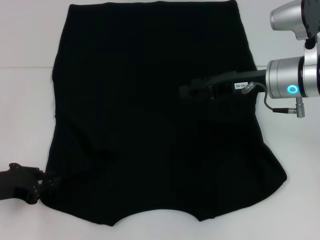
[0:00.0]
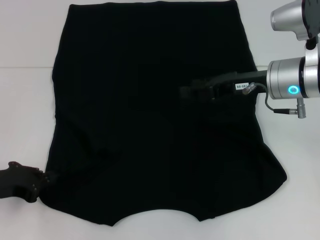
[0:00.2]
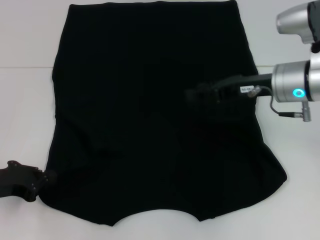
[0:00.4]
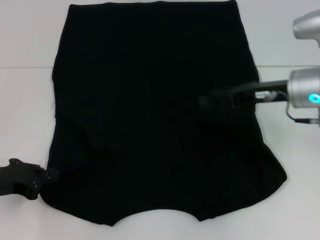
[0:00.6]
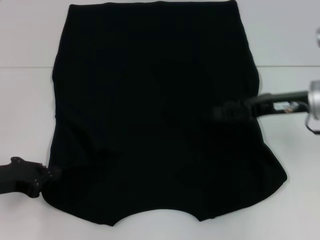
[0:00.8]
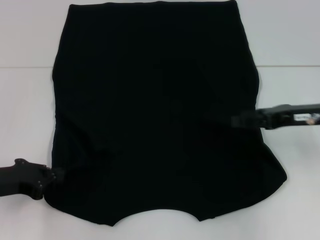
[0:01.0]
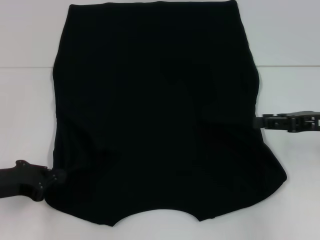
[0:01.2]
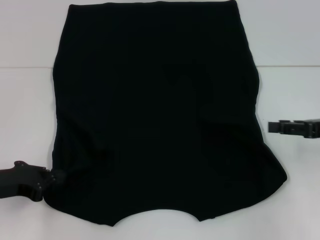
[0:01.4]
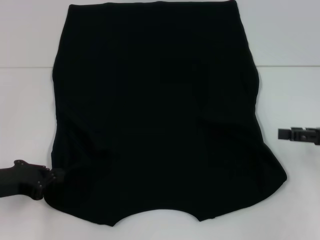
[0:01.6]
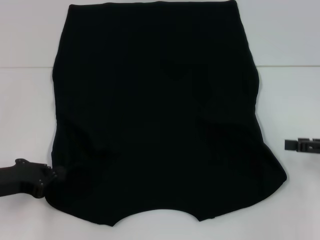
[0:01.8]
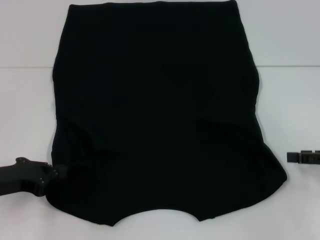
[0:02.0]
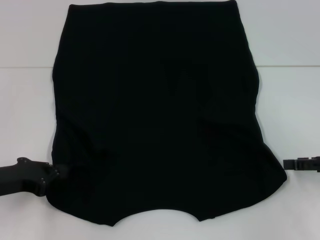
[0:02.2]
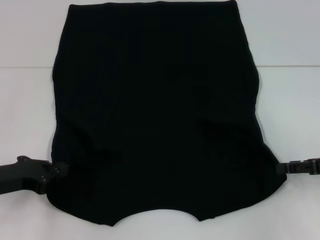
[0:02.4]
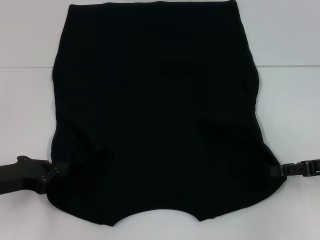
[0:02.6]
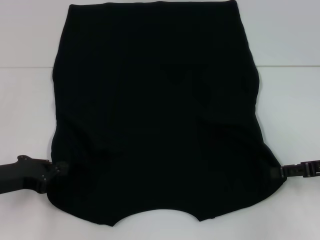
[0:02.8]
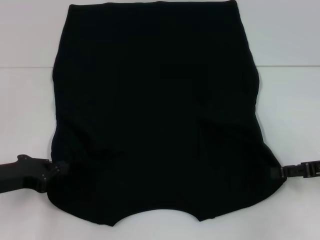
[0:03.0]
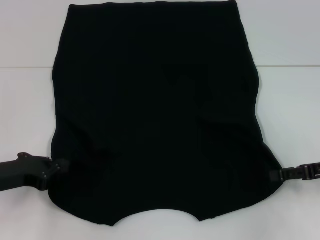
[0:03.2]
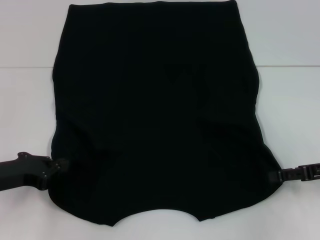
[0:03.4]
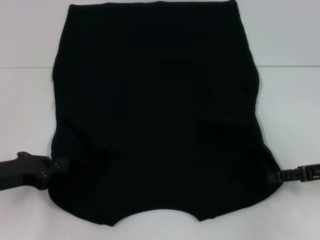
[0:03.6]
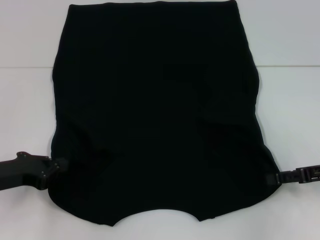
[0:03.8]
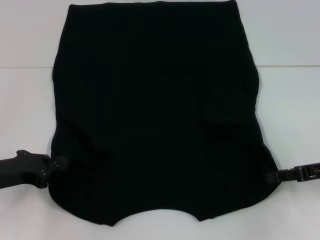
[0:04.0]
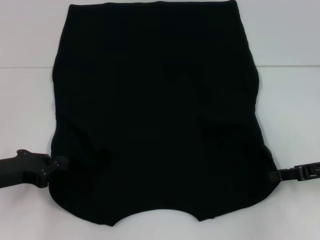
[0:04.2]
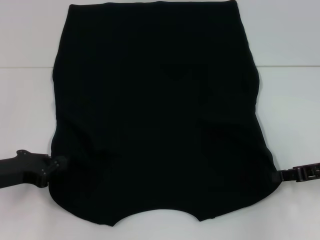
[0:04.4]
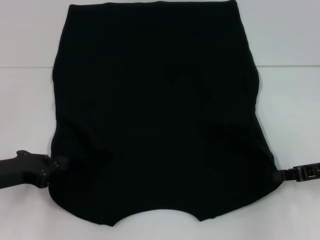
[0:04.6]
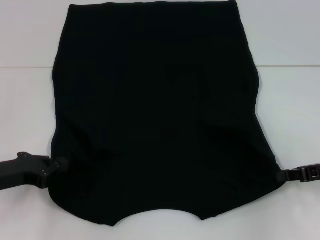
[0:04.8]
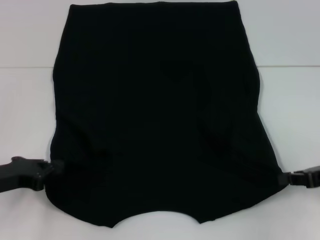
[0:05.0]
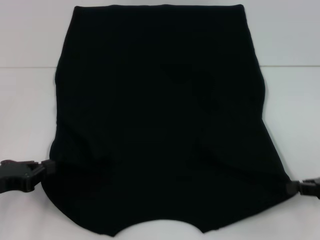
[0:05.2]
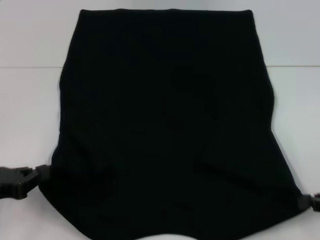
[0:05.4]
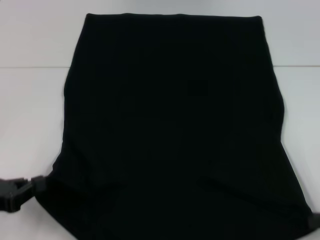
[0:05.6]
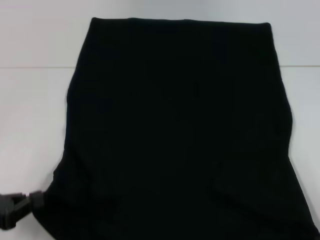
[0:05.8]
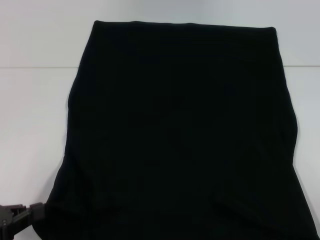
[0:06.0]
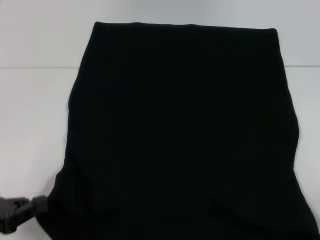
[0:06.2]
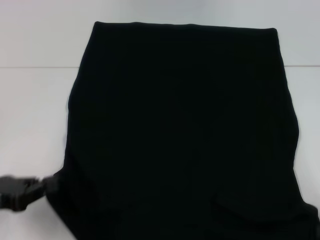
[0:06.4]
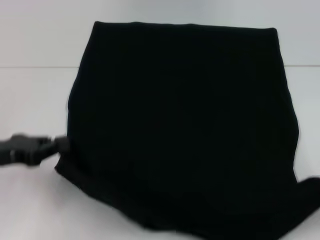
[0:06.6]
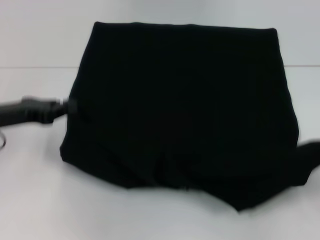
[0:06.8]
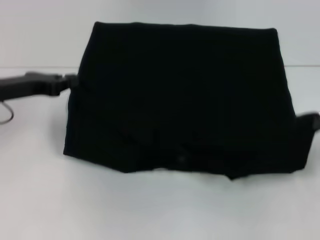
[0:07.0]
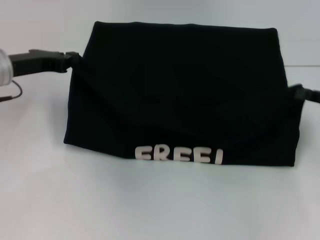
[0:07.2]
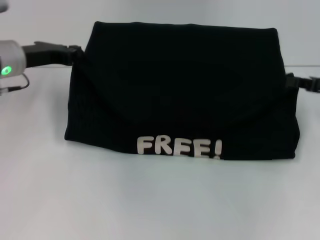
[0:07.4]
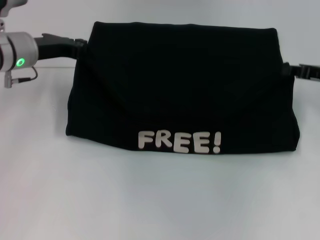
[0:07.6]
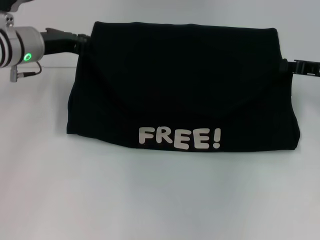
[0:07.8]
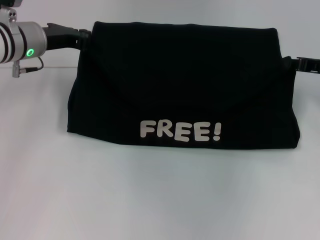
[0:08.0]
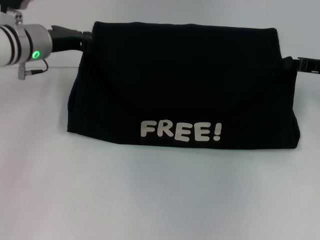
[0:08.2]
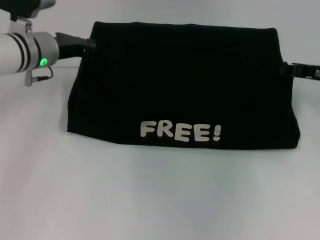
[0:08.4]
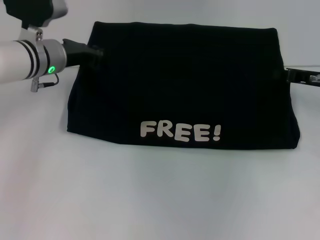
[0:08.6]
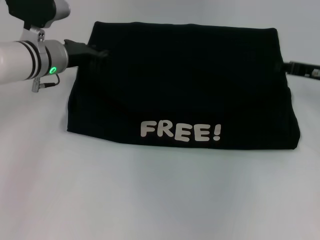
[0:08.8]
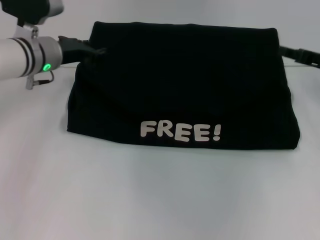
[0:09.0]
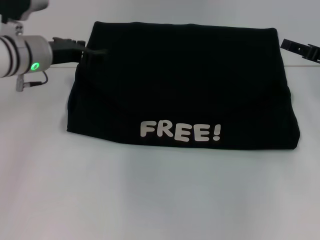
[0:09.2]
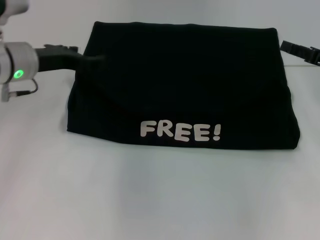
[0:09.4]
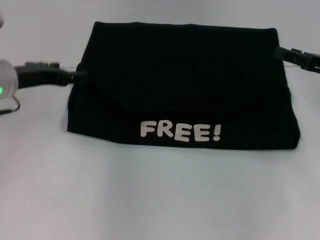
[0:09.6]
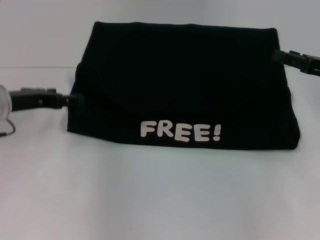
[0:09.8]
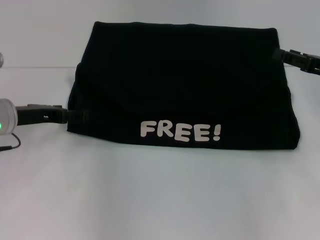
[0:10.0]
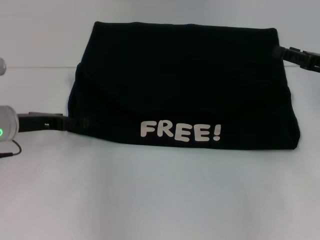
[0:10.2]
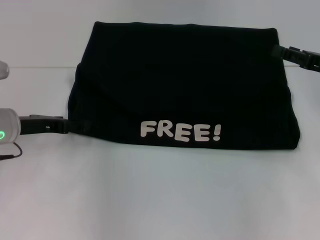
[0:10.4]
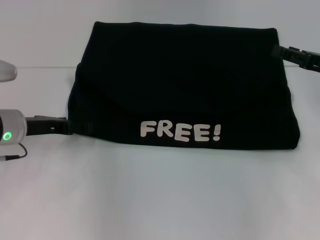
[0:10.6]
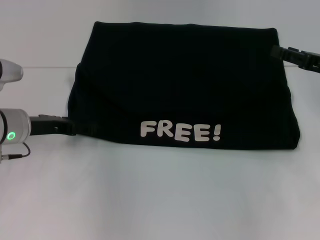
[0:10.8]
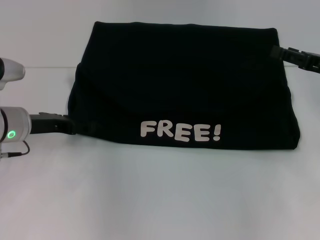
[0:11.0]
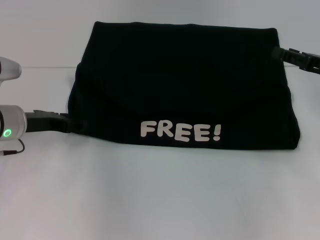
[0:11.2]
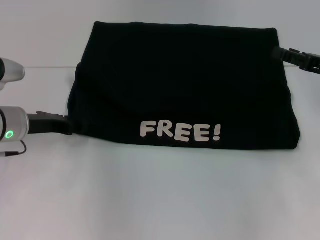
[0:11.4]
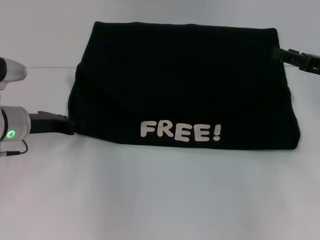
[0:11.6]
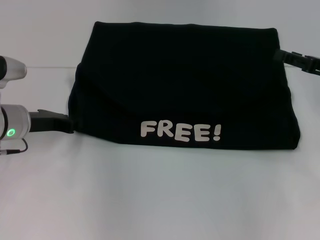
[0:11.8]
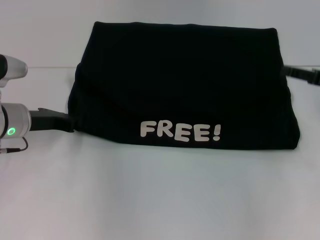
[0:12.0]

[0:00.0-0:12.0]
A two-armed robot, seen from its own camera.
Step, 0:00.4 to 0:04.8: Grab the bottom right corner with your right hand.
Step, 0:05.0 to 0:09.0: Fold the clothes with your left hand.
Step, 0:05.0 to 0:09.0: Fold the clothes with your right hand.
0:00.0 to 0:01.6: The right gripper is displaced to the right and backward by some 20 cm; the left gripper closes.
0:01.6 to 0:03.0: The grippers make only small movements.
0:03.0 to 0:04.4: The right gripper closes up.
0:04.4 to 0:06.0: The left gripper shifts about 10 cm backward. The right gripper goes roughly 15 cm backward and to the right.
0:06.0 to 0:07.6: Both grippers move forward, roughly 25 cm.
0:07.6 to 0:09.0: The right gripper opens its fingers.
0:09.0 to 0:10.4: The right gripper opens. The left gripper moves backward and to the left, roughly 10 cm, and opens up.
0:10.4 to 0:12.0: The left gripper closes.

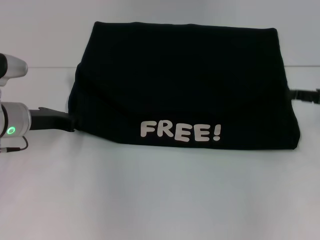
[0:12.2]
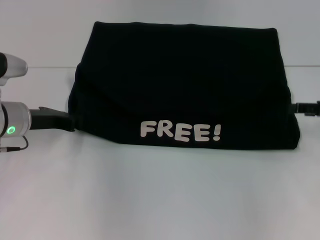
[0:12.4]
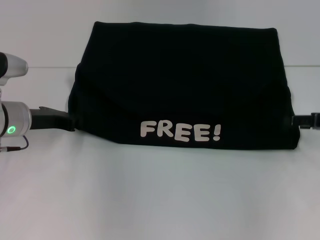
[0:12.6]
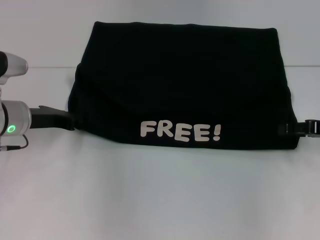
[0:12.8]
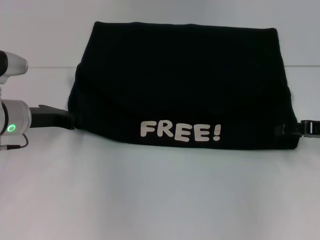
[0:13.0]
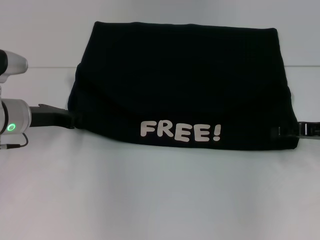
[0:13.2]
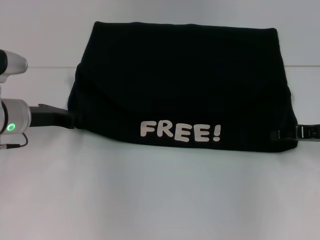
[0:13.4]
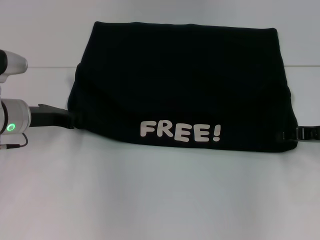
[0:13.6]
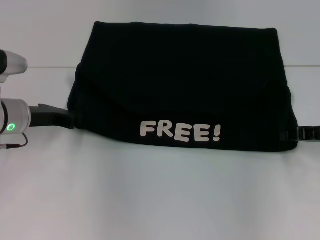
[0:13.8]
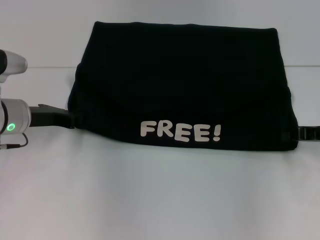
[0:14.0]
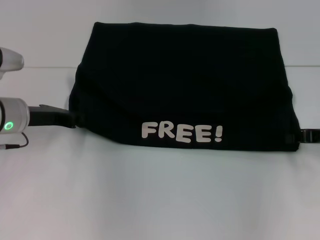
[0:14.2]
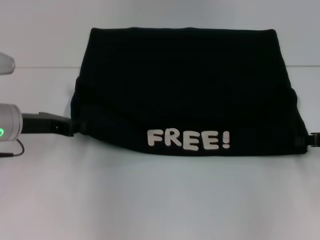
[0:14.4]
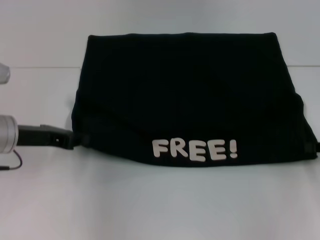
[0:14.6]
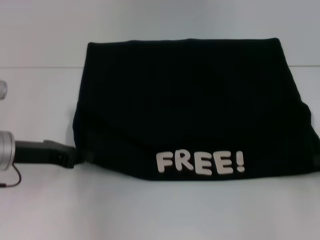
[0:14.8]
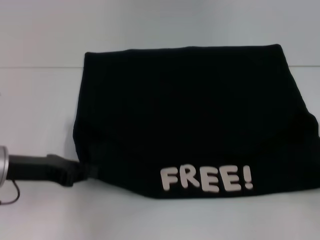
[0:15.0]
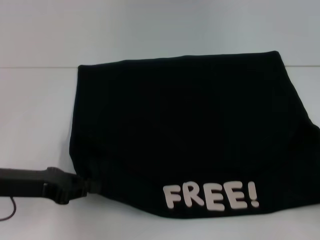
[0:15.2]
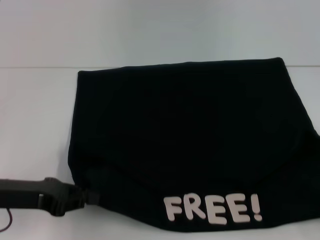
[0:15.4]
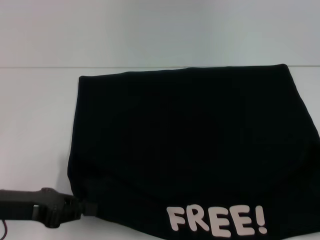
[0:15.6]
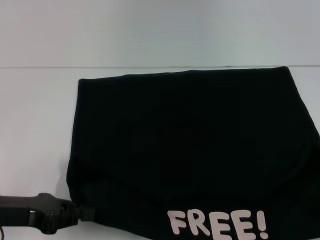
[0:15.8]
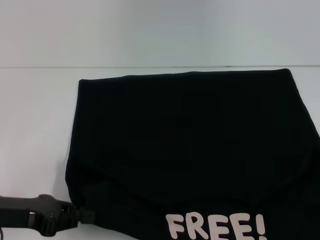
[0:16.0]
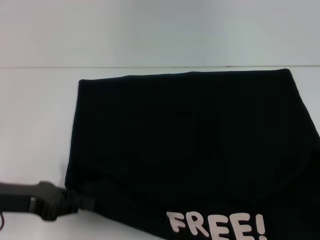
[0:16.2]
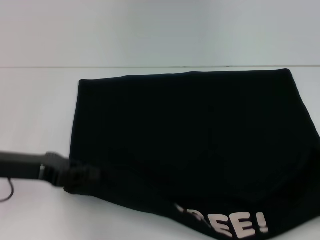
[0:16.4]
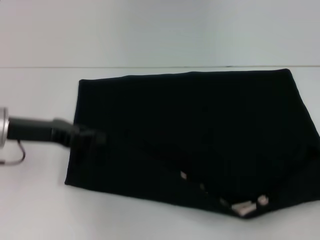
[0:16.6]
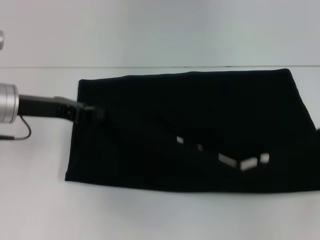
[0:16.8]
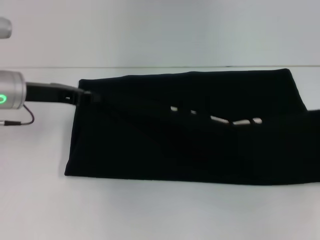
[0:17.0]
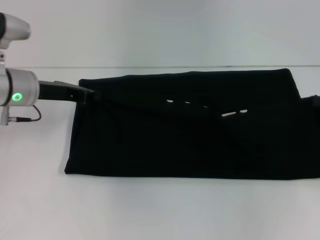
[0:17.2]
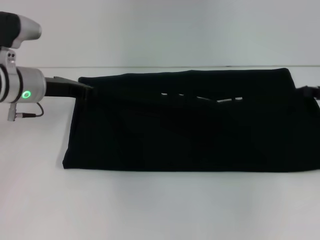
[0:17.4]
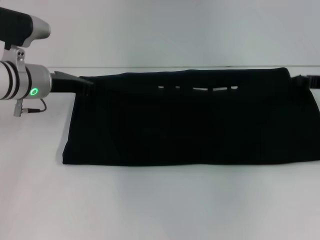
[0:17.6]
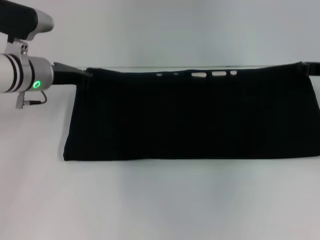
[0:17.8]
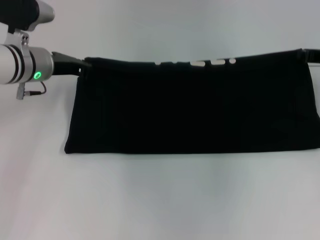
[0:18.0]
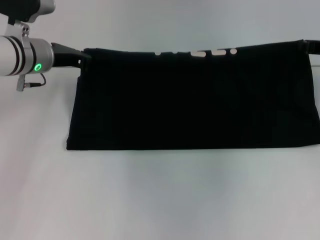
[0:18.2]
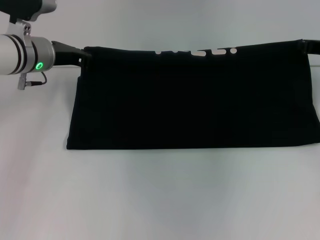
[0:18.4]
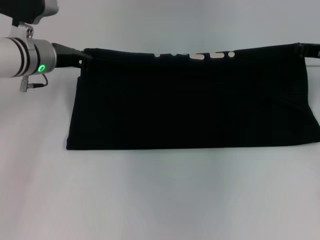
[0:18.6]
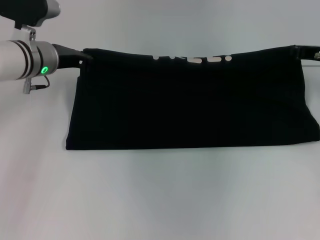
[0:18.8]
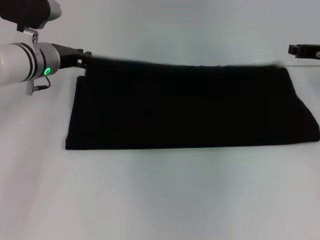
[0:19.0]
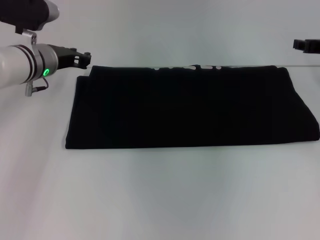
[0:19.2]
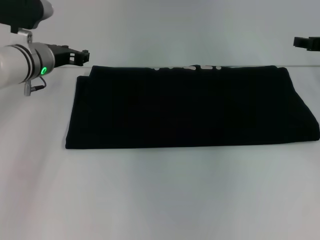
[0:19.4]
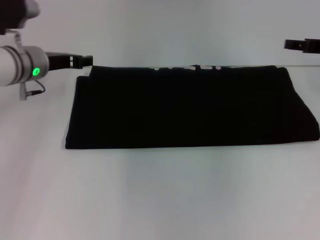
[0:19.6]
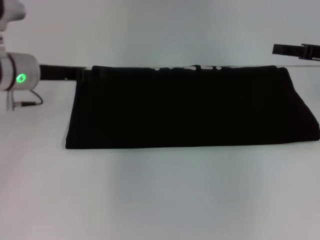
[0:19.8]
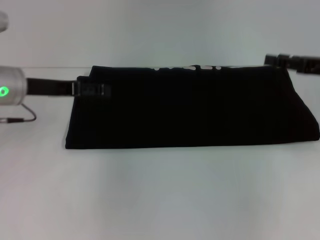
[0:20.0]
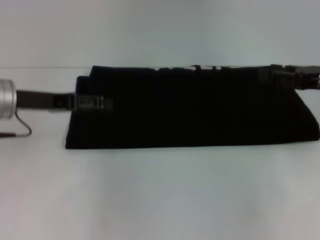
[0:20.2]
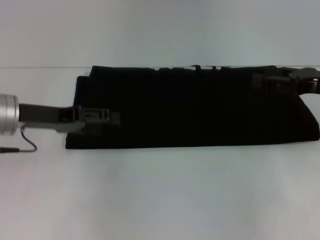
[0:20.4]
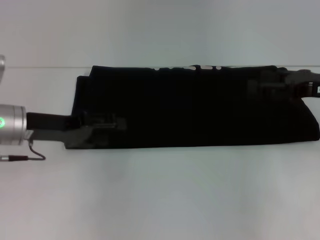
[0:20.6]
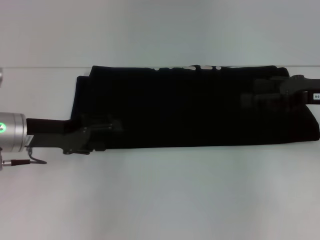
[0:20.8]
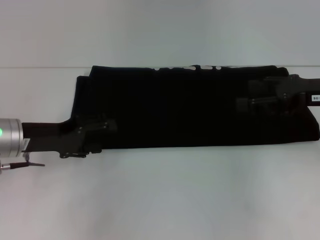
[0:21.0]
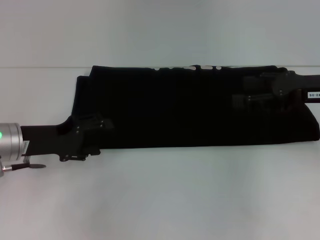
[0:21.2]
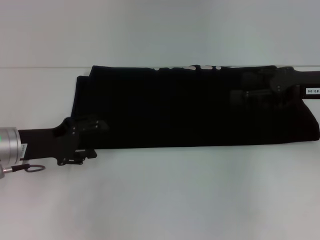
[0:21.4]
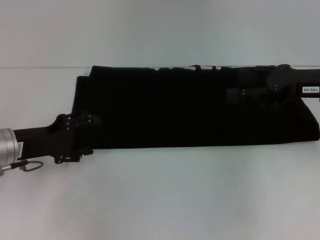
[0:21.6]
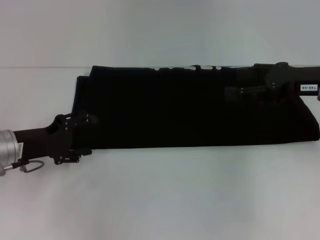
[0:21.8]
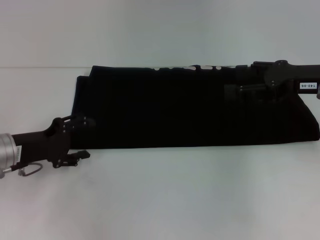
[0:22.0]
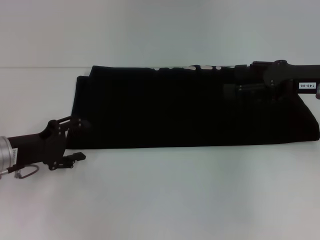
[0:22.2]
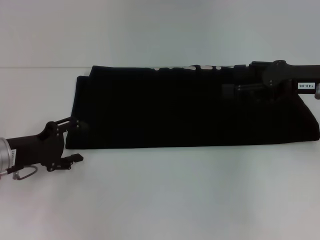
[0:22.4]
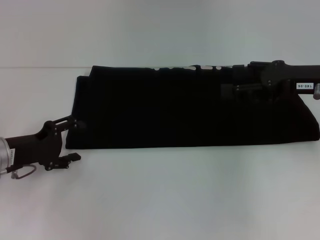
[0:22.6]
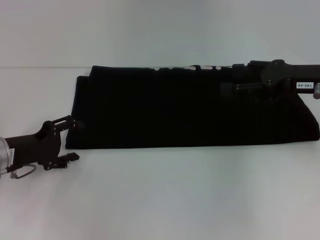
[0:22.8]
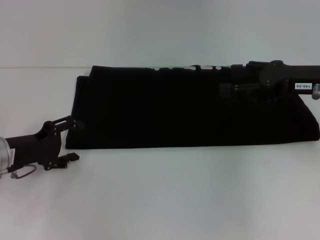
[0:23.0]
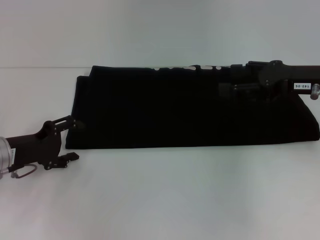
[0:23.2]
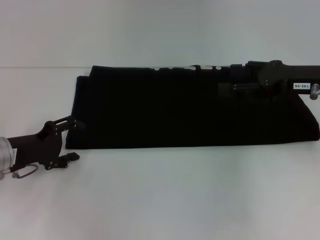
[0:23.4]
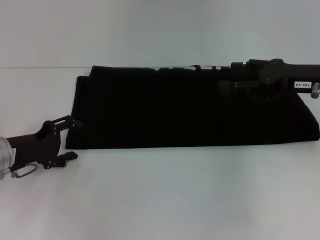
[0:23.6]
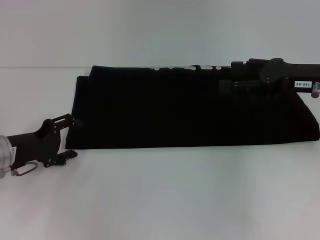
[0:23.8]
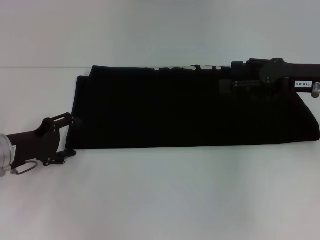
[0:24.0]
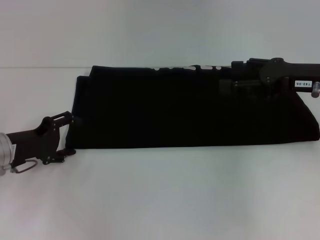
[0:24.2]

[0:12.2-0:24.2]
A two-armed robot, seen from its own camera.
Step, 0:12.2 to 0:15.6: Pull the clothes with your left hand.
Step, 0:12.2 to 0:15.6: Pull the clothes with your right hand.
Step, 0:15.8 to 0:19.0: Fold the clothes with your right hand.
0:12.2 to 0:13.8: The right gripper closes.
0:13.8 to 0:15.2: The left gripper goes approximately 10 cm backward; the right gripper shifts about 15 cm backward and to the right.
0:15.2 to 0:16.6: The left gripper moves forward, some 5 cm.
0:16.6 to 0:18.2: The left gripper heads forward, covering roughly 10 cm. Meanwhile the right gripper travels forward and to the left by approximately 20 cm.
0:18.2 to 0:19.8: The right gripper opens its fingers. The left gripper opens up.
0:19.8 to 0:21.2: The right gripper moves approximately 5 cm. The left gripper moves backward and downward, roughly 10 cm.
0:22.6 to 0:24.2: The grippers move only a little.
